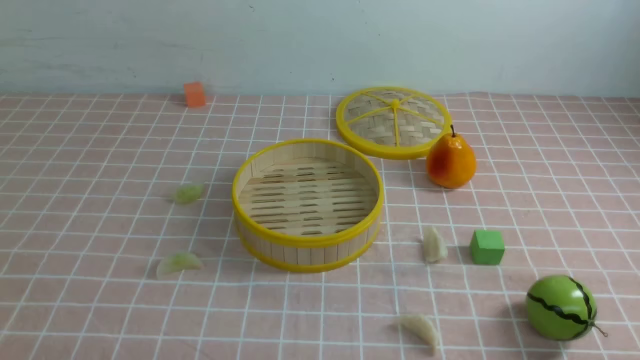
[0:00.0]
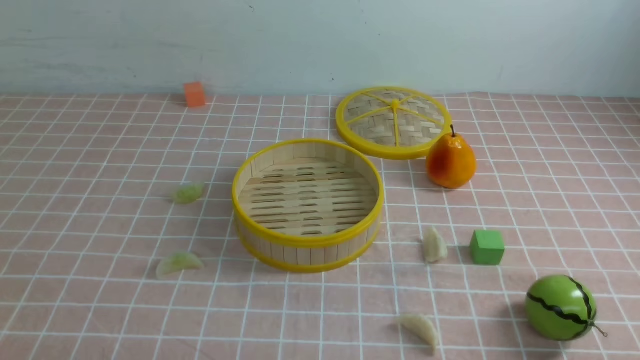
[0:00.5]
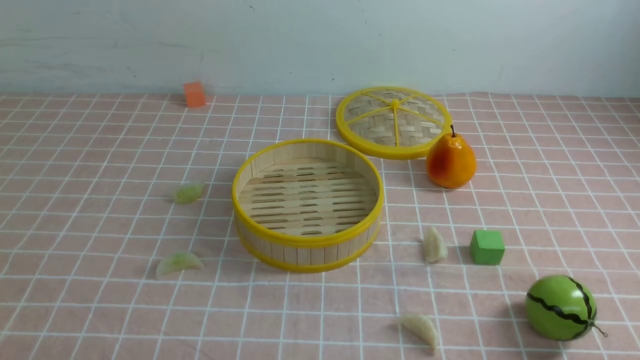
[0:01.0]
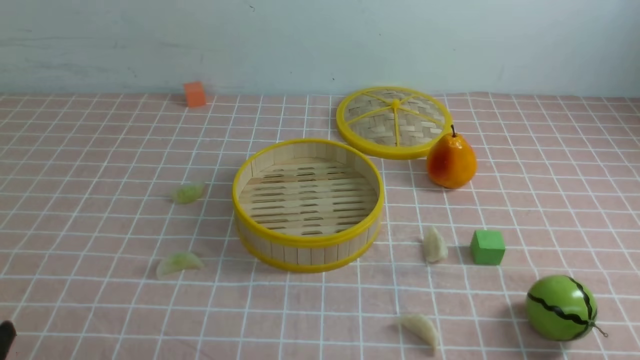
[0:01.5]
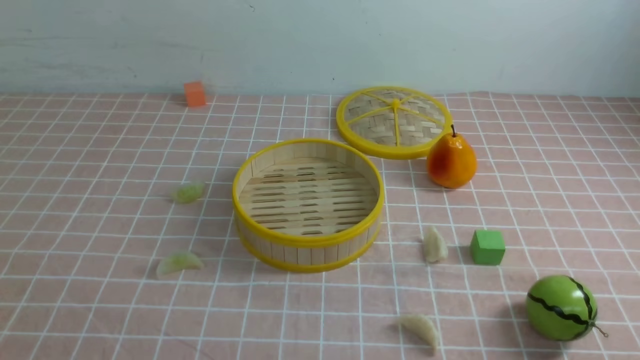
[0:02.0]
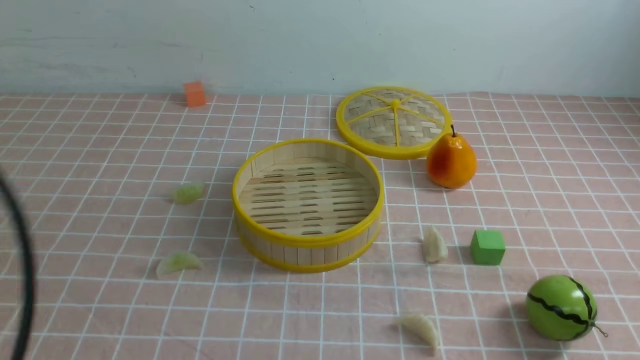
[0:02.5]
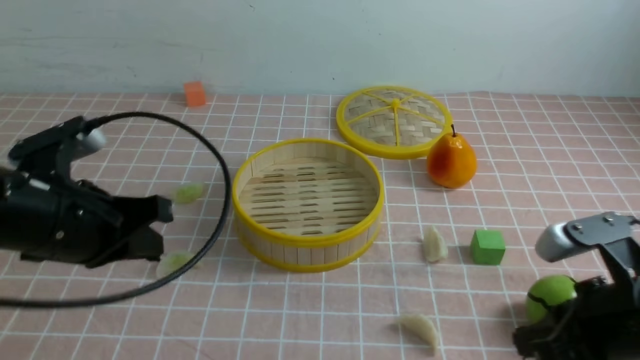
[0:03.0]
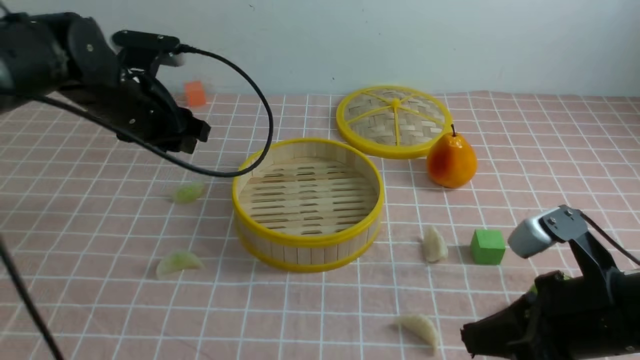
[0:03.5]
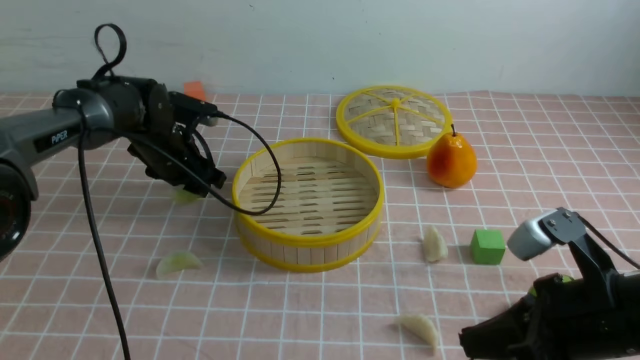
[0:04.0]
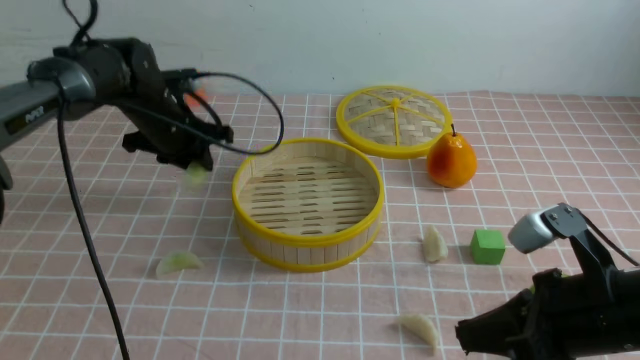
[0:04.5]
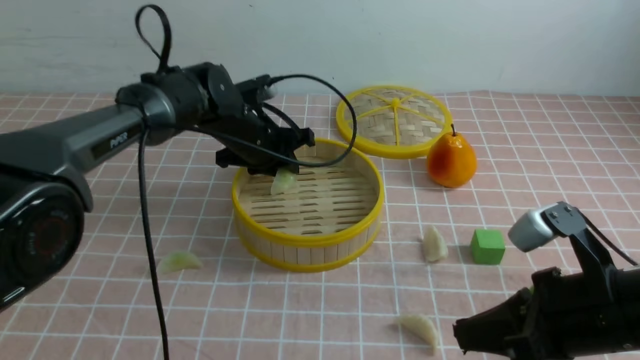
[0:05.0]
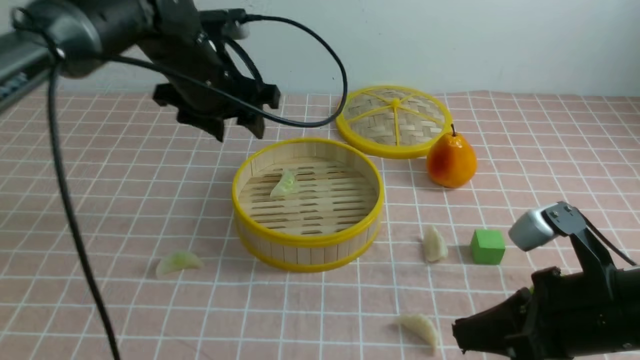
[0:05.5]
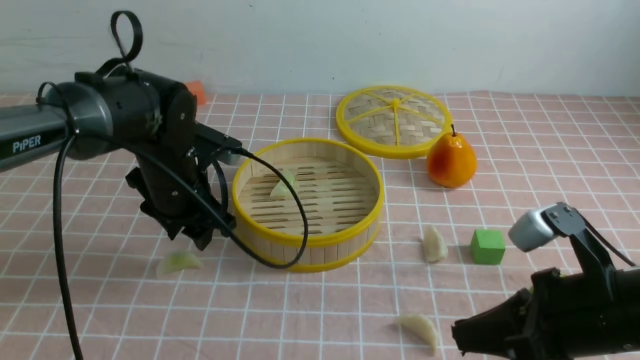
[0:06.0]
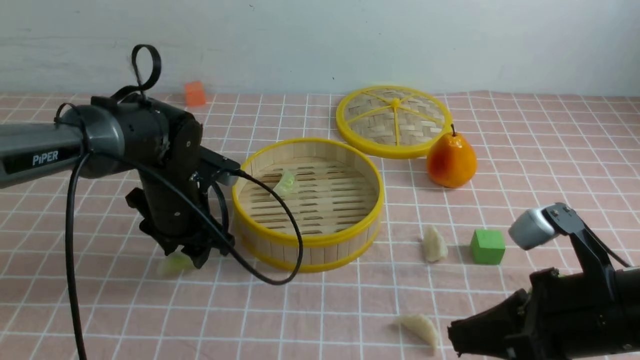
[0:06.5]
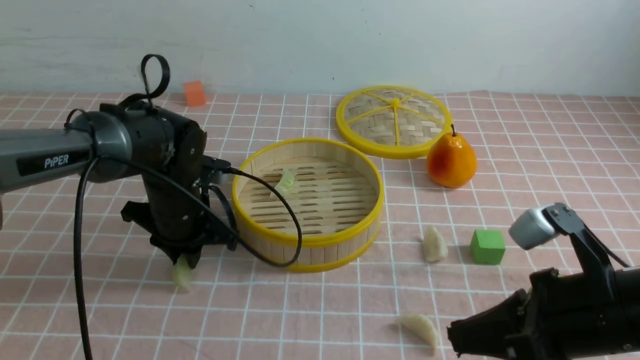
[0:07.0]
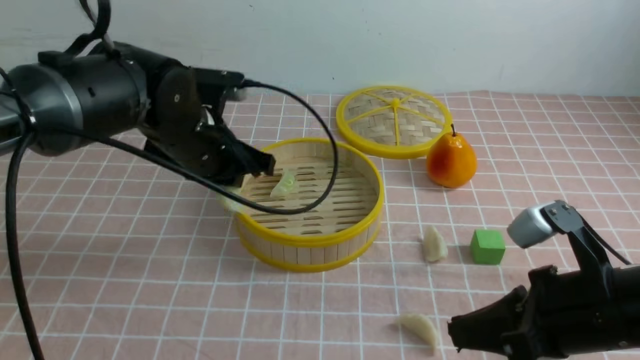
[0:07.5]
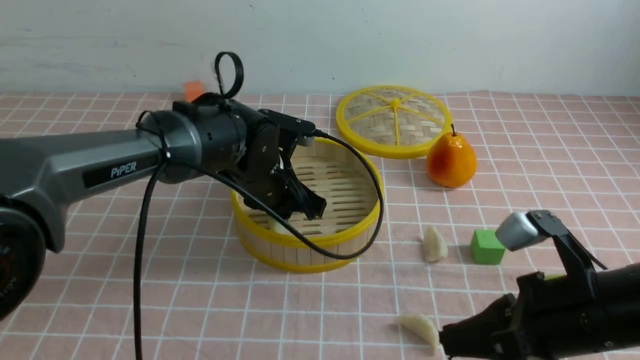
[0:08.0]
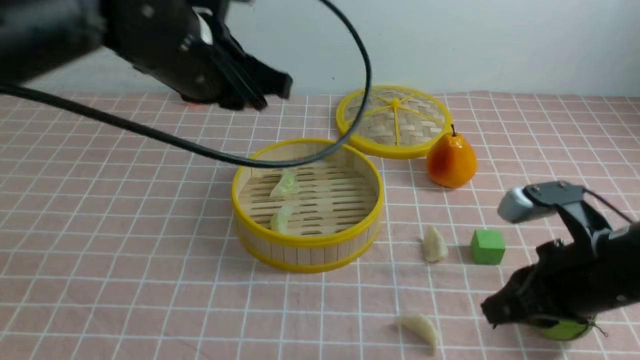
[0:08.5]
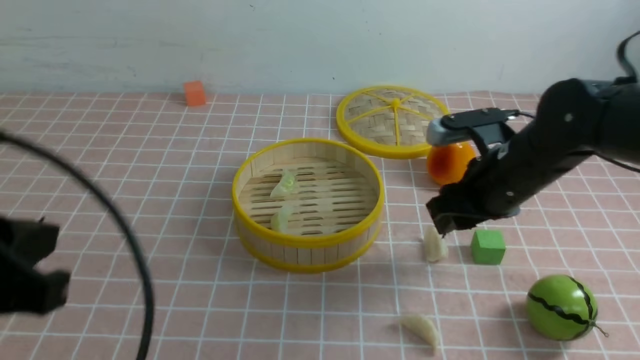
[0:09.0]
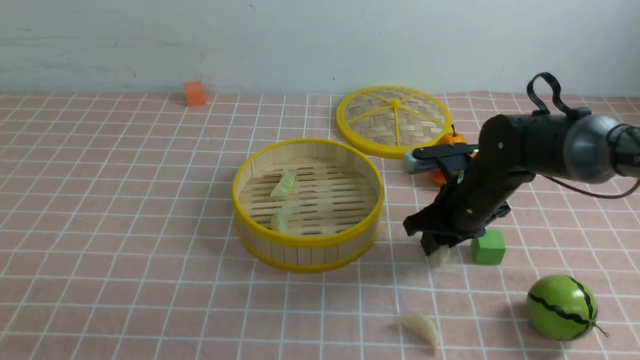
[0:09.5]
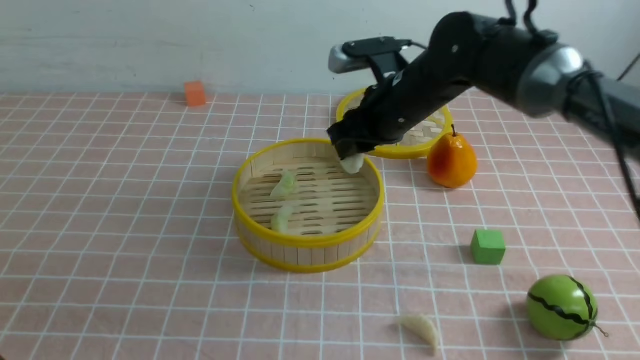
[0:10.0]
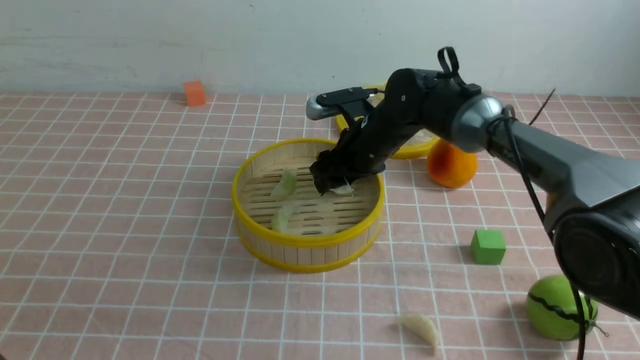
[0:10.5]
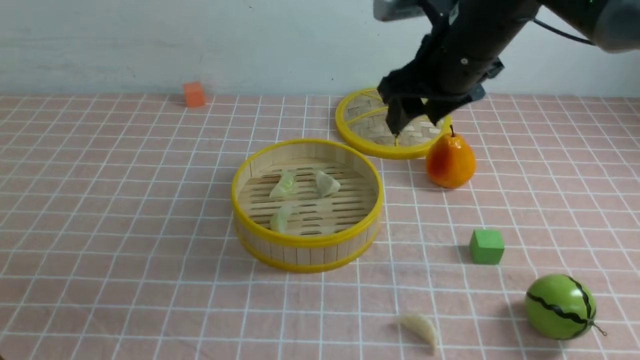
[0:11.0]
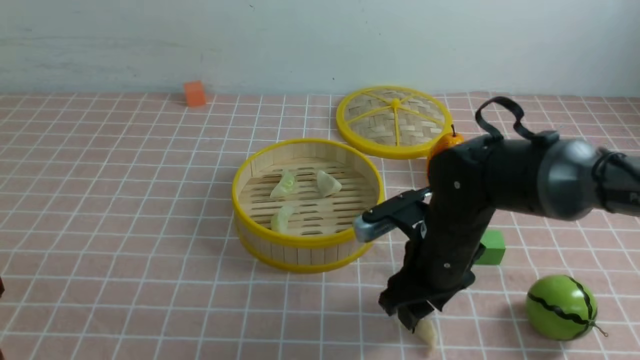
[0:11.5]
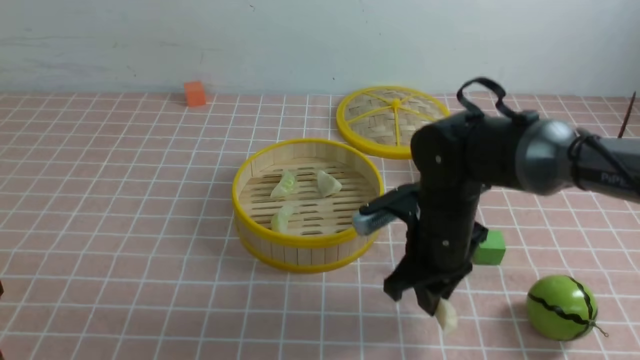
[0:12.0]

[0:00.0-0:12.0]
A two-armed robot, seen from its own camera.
Task of the whole recording: put the dumplings into the steamer on the table with the pink tablecloth.
Step, 0.0 to 4.0 s: use the left arm to grab a dumpling.
Step, 4.5 to 5.0 s: use the left arm to put the dumpling into the steamer.
Step, 5.5 to 7.0 s: use the left arm to grab a dumpling.
Step, 7.5 to 8.0 s: use the left arm to put the dumpling into the steamer.
Step, 8.5 to 9.5 s: use the right arm to grab a dumpling.
Step, 10.5 to 11.5 s: use the right arm to grab a dumpling.
2.0 to 4.0 s: The right gripper is displaced forward and to the left by roughly 20 cm; the left gripper moves forward, approximately 50 cm, and closes, then opens again.
4.0 to 6.0 s: The left gripper shifts about 10 cm backward, travels upward and back again, some 10 cm each way, and closes and opens again.
6.0 to 8.0 s: The left gripper moves to the right, roughly 10 cm, and closes.
8.0 to 10.0 s: The left gripper shifts about 35 cm backward and to the left, and closes. Meanwhile the right gripper goes some 25 cm forward and to the left, and opens up.
10.0 to 12.0 s: The right gripper travels backward by roughly 10 cm, and opens, then closes again.

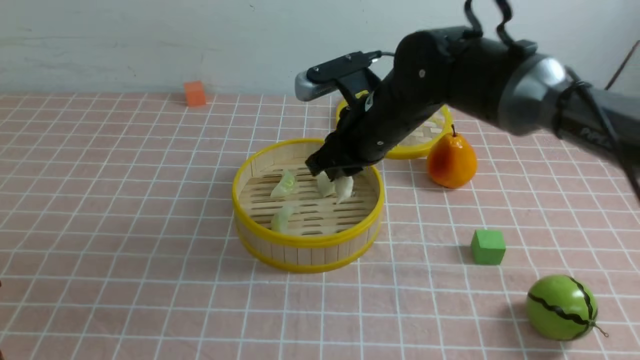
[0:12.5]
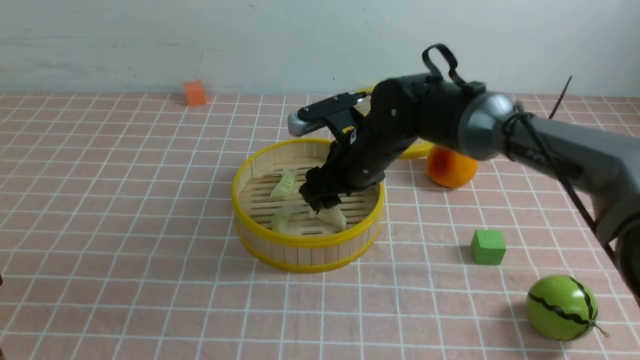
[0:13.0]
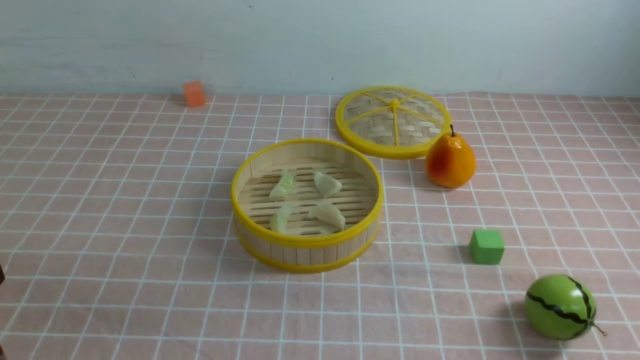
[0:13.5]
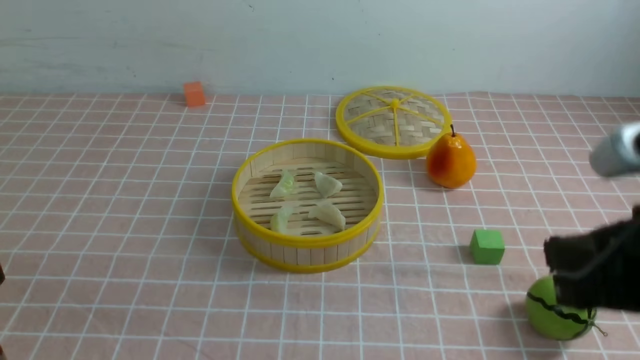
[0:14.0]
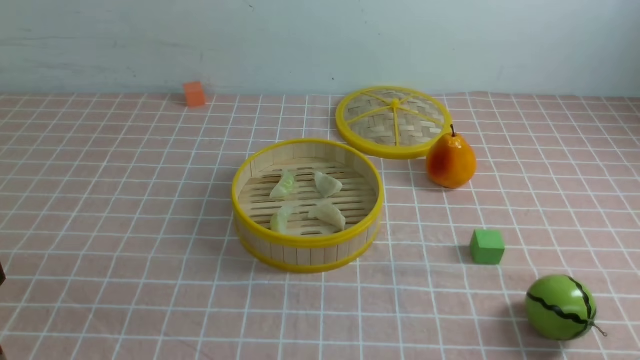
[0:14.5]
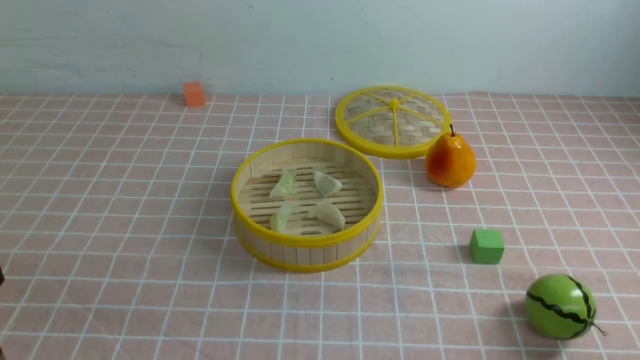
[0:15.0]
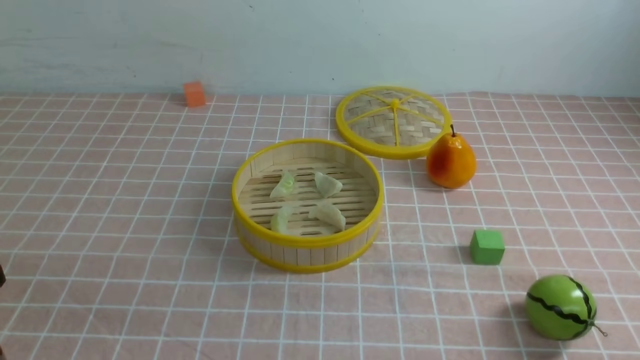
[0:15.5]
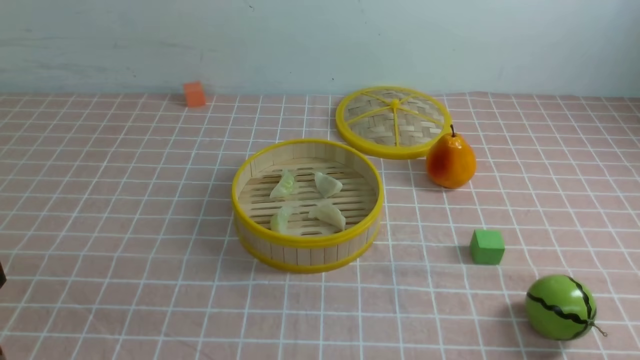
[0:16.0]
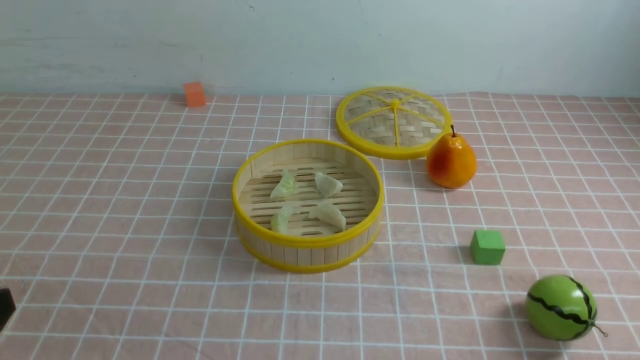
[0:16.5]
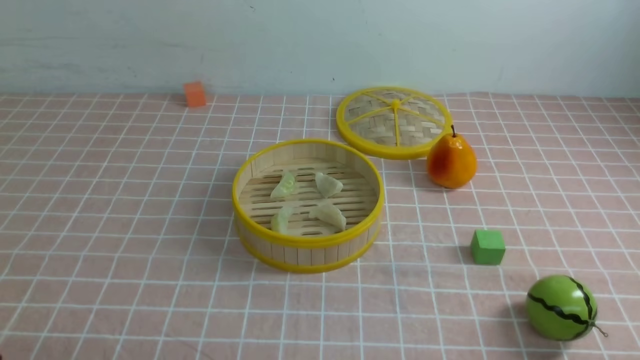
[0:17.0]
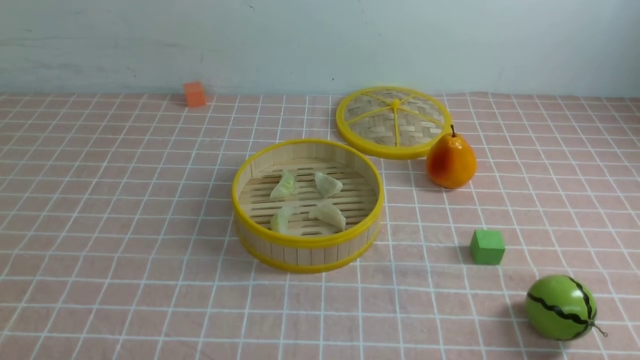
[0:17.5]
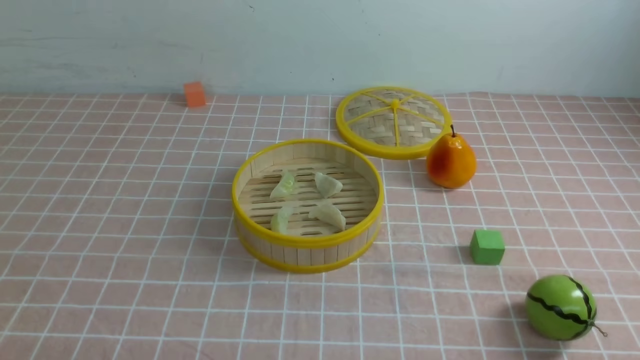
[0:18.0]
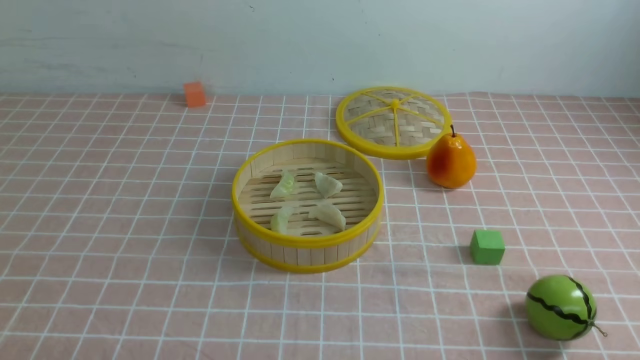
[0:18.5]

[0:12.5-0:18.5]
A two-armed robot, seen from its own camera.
Task of the whole recording: put the dumplings into the steamer on the table with the pink tablecloth.
12.5 to 14.5 s: The right gripper goes approximately 35 cm backward and to the right, and opens and closes again.

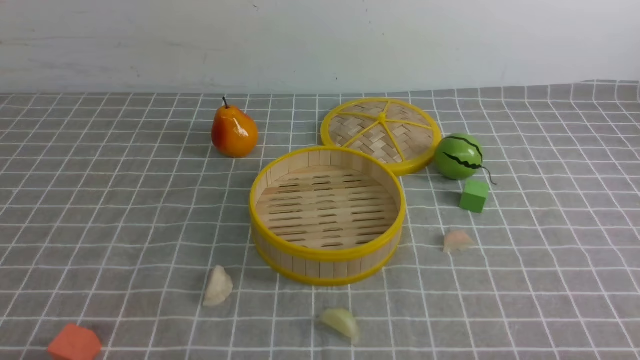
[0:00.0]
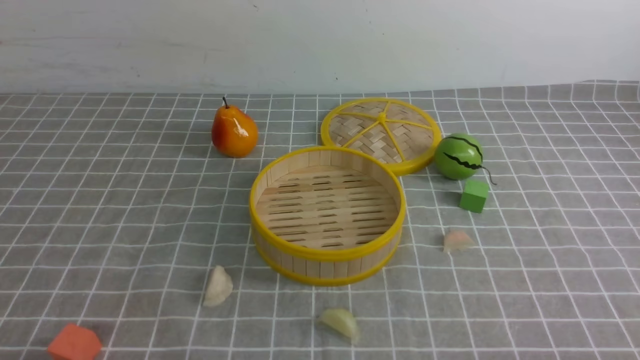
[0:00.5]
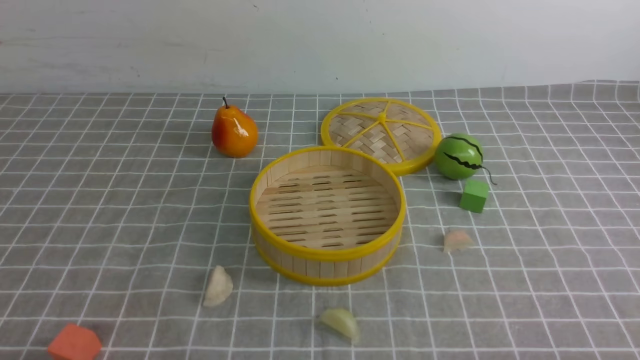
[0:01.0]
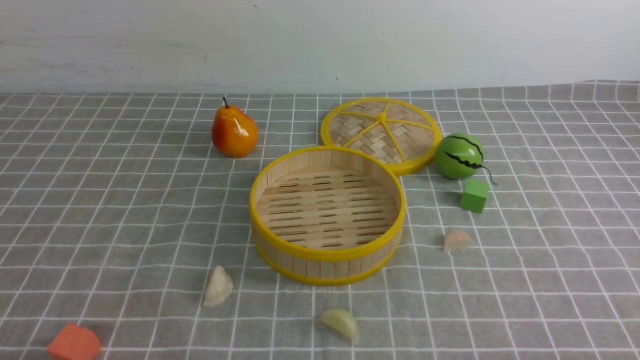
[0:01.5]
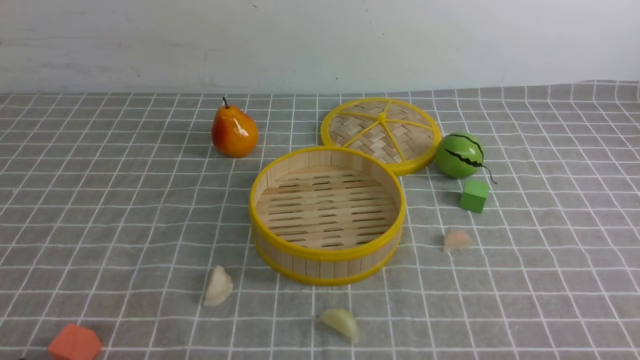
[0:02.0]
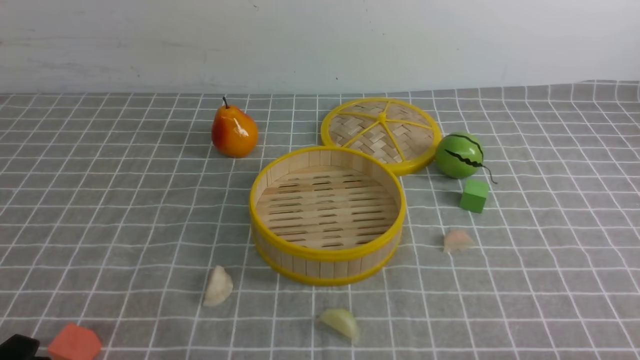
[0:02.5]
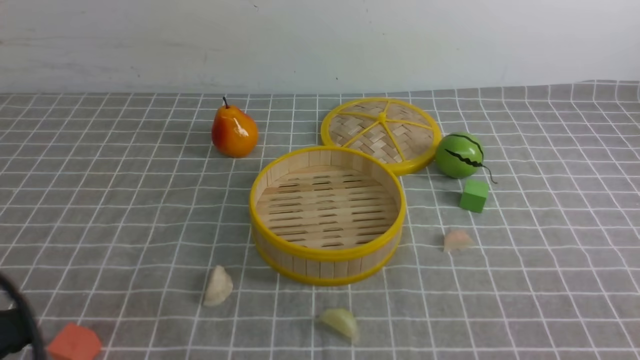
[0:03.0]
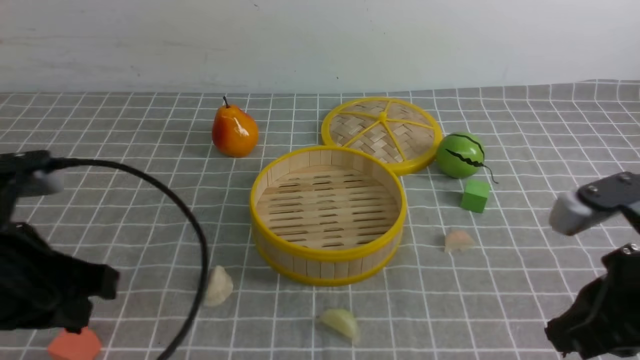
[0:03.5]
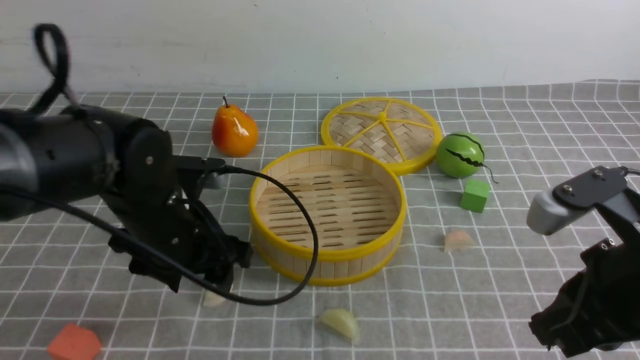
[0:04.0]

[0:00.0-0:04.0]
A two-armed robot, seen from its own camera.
Task of the whole recording: put the dumplings into the steamer on the table with the grey tablecloth.
2.0 to 4.0 s: The left gripper travels forward and to the right by roughly 25 cm, and opens, while the right gripper is displaced forward, upward and to the left by about 20 cm, and closes its fingers.
